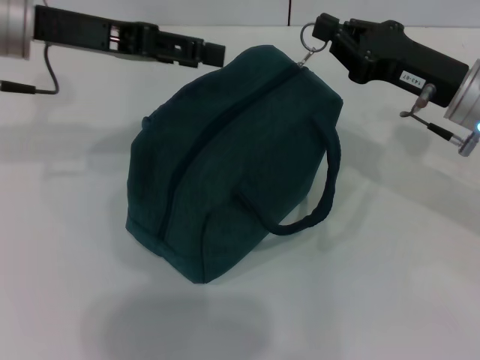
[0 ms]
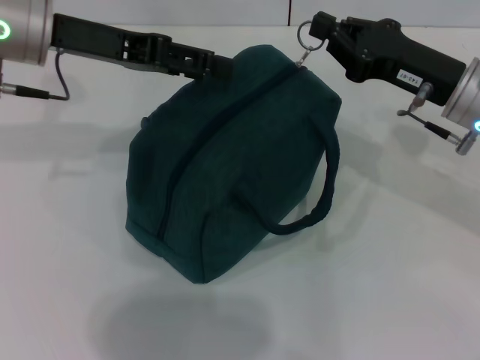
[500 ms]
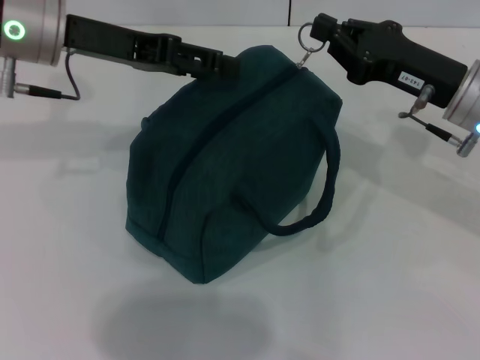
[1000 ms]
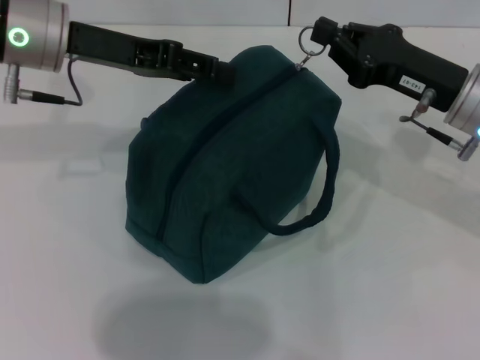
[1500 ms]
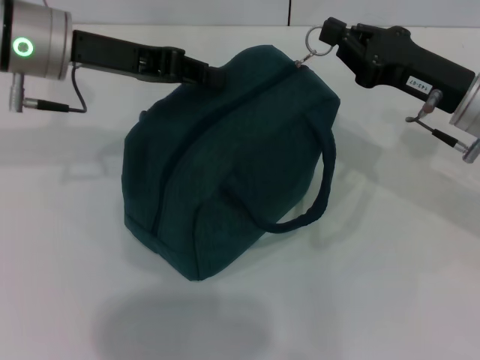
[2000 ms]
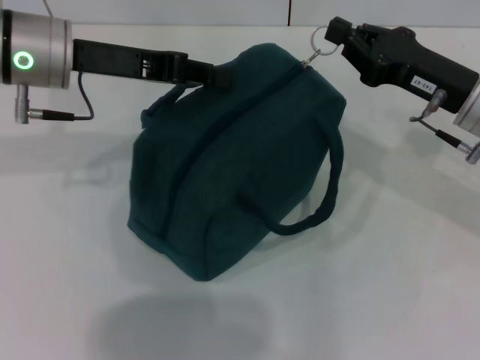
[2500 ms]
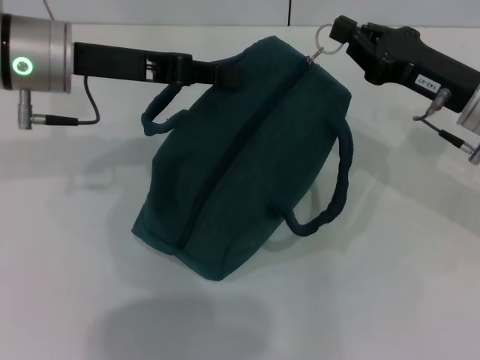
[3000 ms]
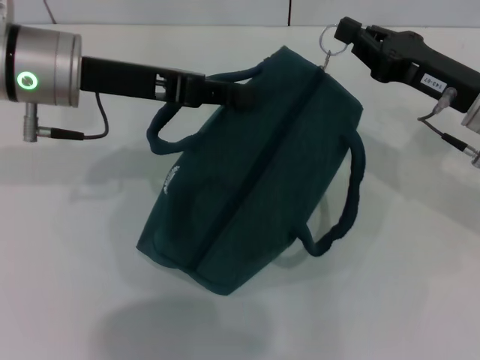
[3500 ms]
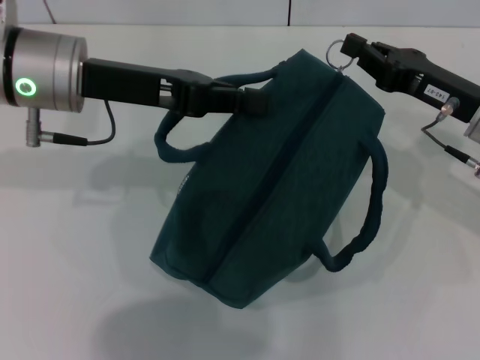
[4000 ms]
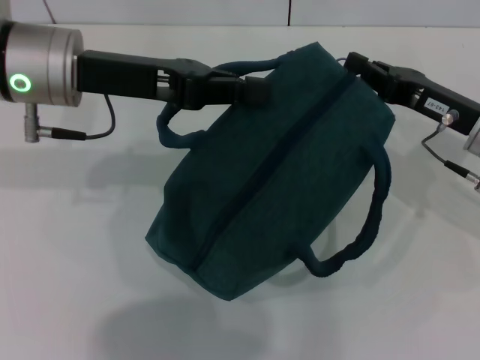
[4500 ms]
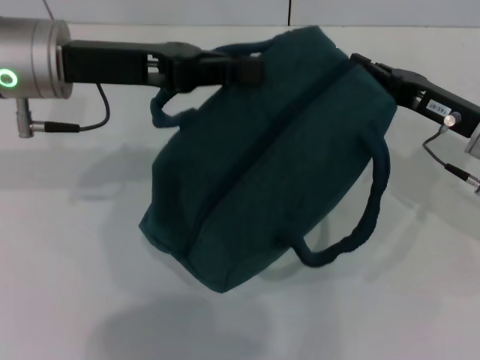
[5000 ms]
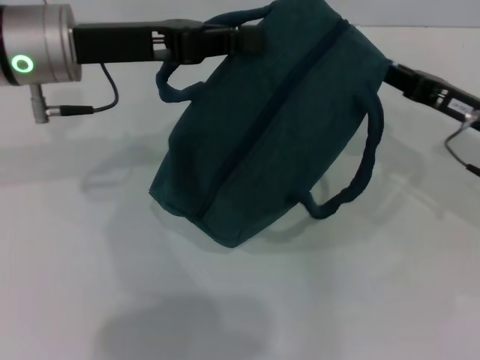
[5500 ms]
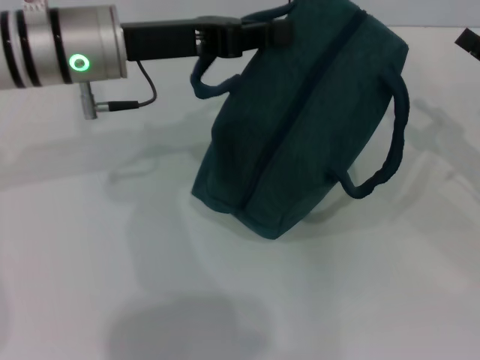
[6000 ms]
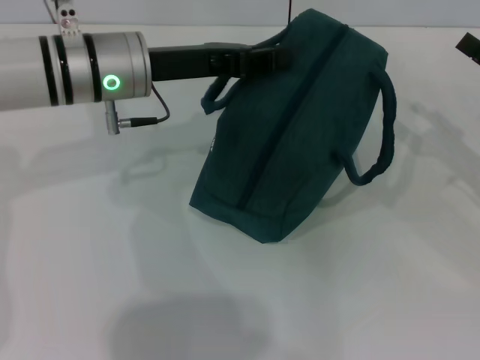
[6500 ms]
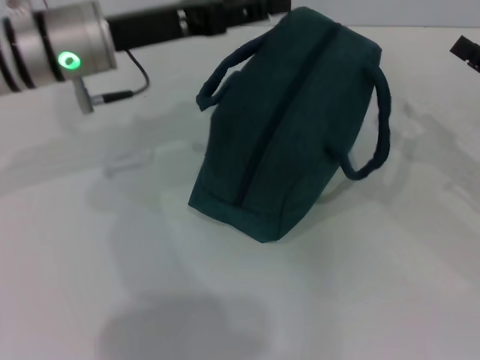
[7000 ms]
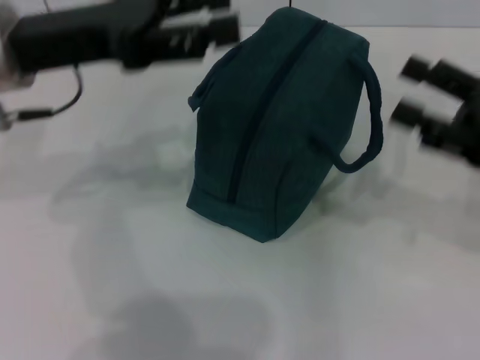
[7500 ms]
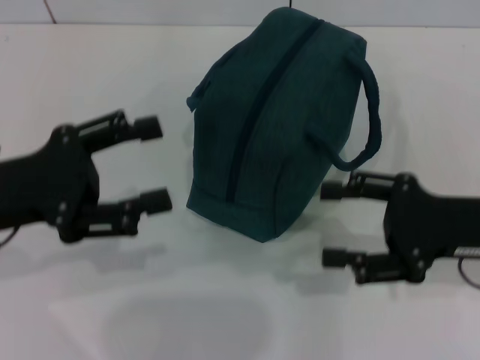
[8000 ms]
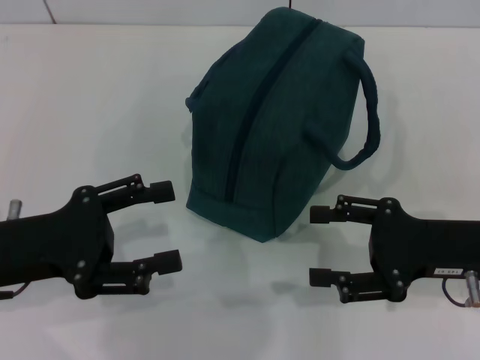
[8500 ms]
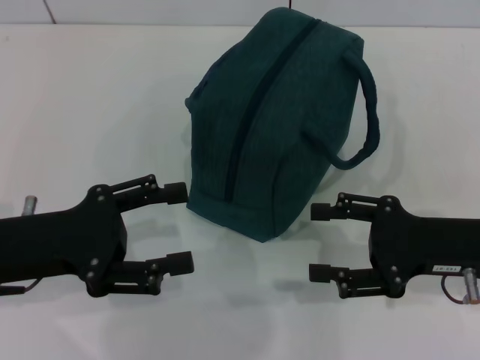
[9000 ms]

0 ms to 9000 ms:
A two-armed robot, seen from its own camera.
Step, 0 ms to 5500 ms: Zip up the lunch bag with your right hand.
Step, 6000 ms to 7000 ms: Hold the lunch bag with your left hand.
0 ms to 2000 ms: The left gripper closes up.
4500 ms to 7000 ms: The left gripper opens its fingers. Meanwhile the right gripper moves to the right, roughly 10 cm, and opens.
7000 ms to 9000 ms: The right gripper is displaced to the left and backward by about 10 cm, while the left gripper goes some 20 cm backward, to the left and downward, and opens.

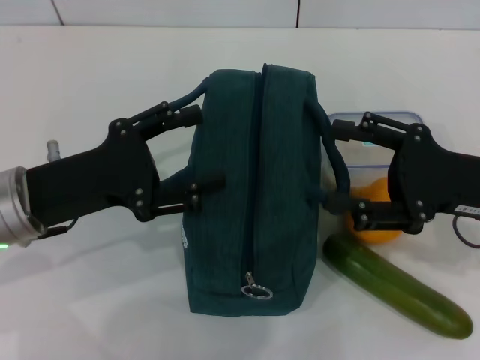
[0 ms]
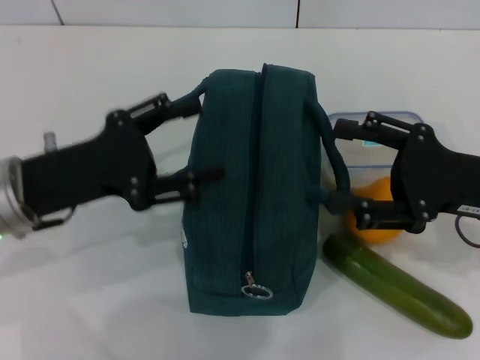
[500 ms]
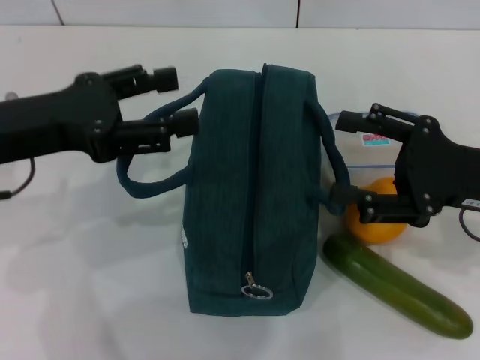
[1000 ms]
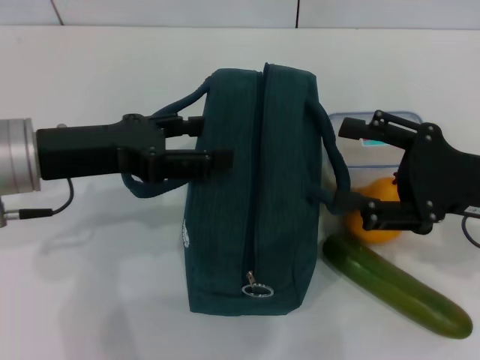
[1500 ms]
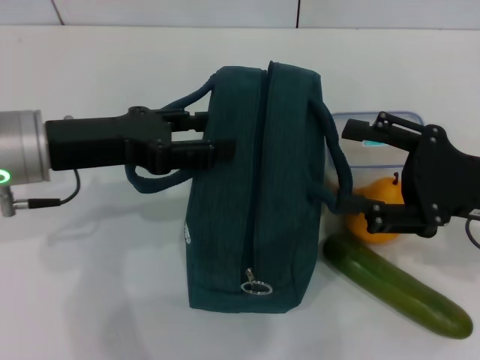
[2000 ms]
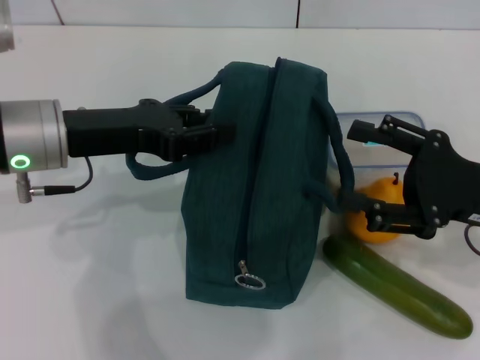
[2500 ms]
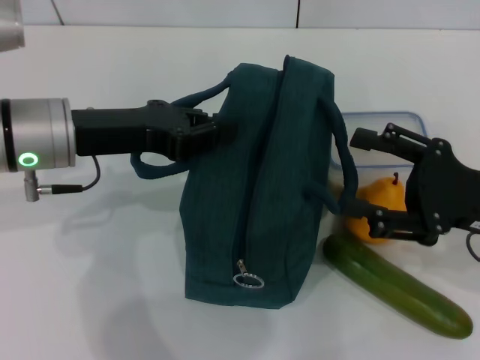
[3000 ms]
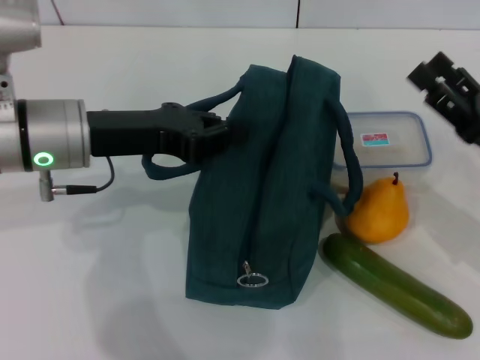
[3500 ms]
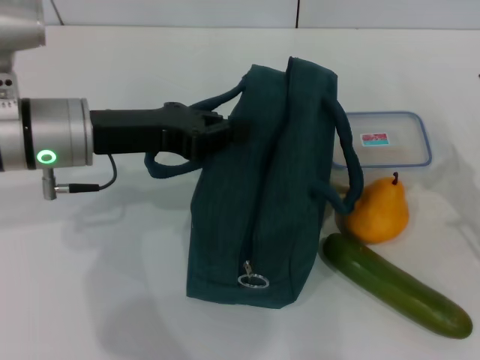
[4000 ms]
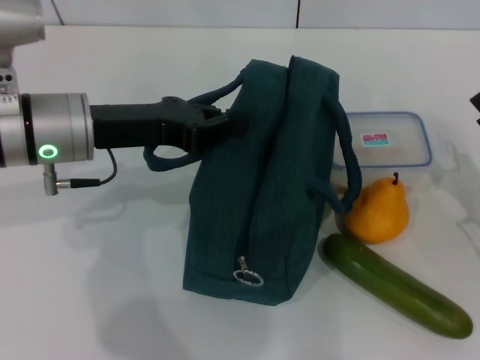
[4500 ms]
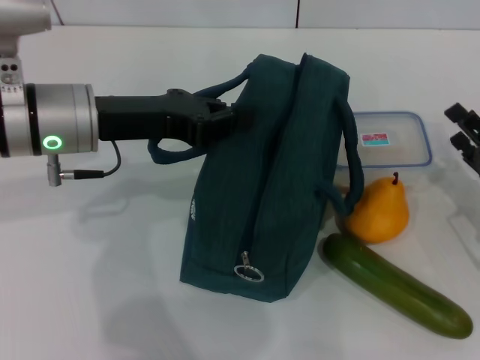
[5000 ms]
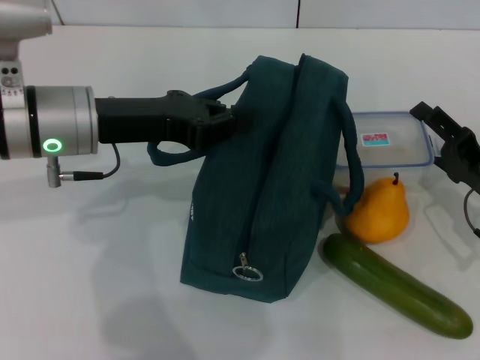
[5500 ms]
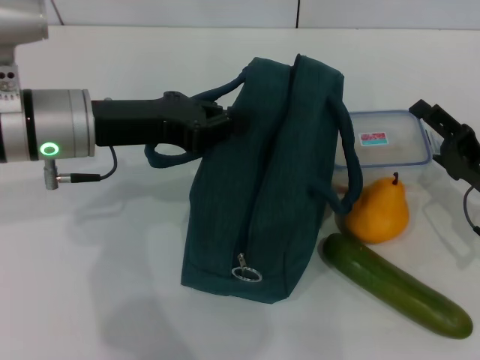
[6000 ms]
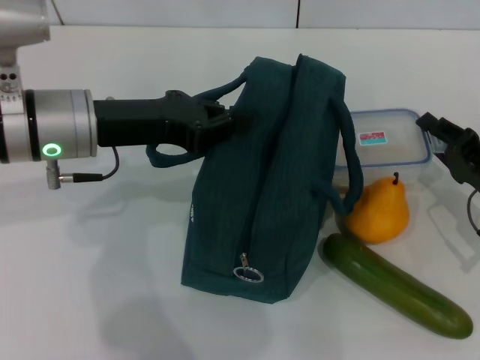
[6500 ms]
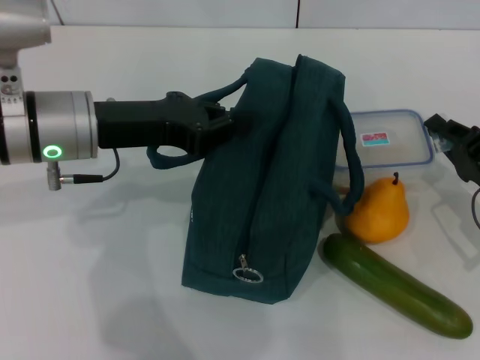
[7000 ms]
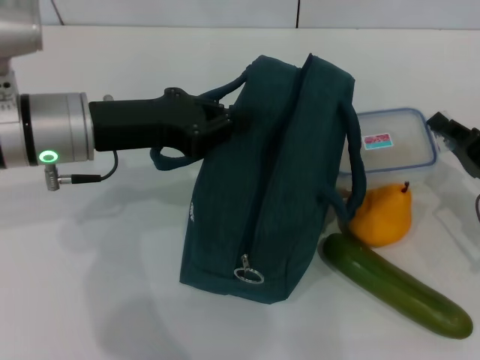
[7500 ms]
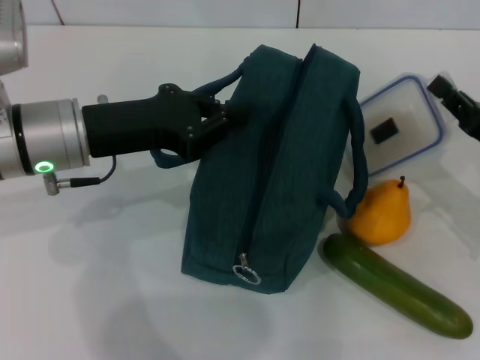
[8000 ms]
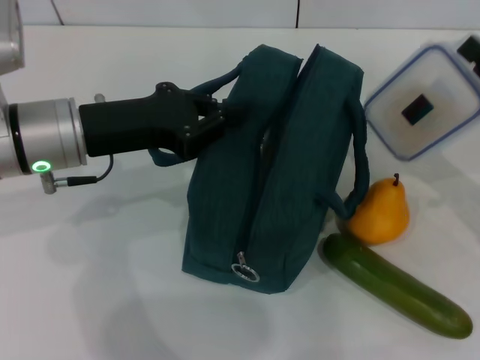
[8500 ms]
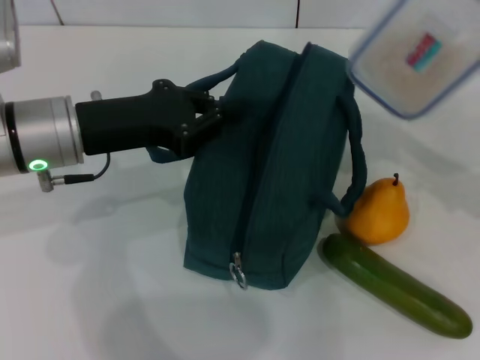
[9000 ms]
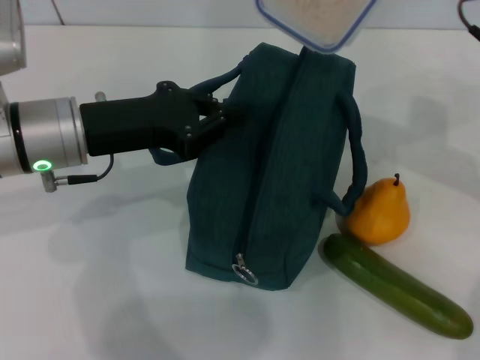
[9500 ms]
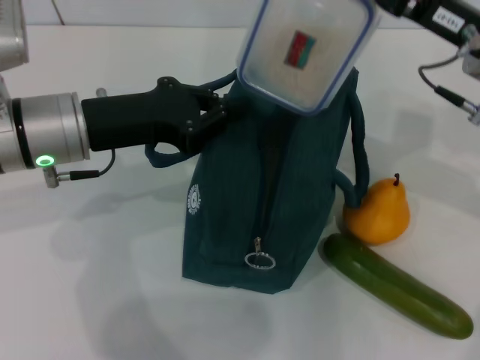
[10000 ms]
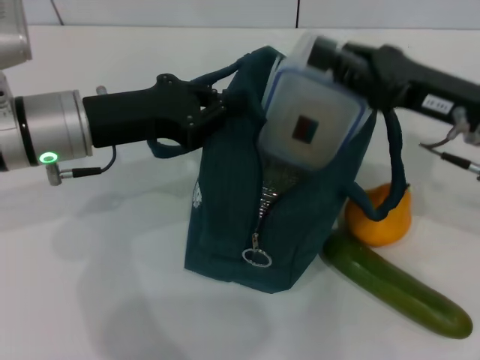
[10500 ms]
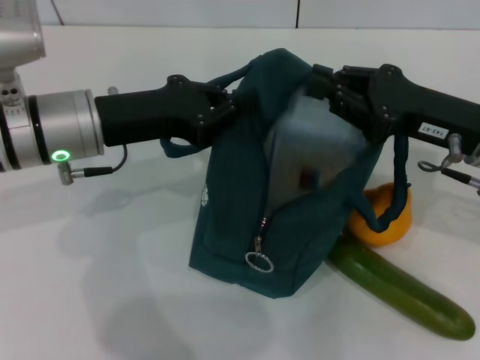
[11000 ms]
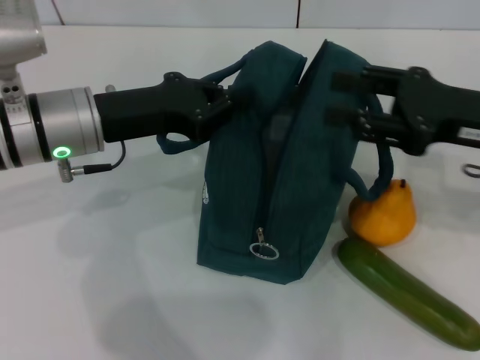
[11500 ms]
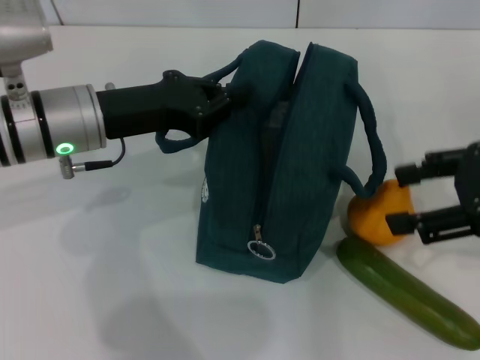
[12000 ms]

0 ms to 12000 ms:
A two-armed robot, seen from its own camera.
Step, 0 ms to 2500 ms: Hold the lunch bag with your left hand.
Step, 3000 ms to 7000 ms: Pick up the lunch box with your right hand.
Step, 7500 ms to 11000 ms: Place the lunch box into the lunch bag with your right hand.
0 ms to 2000 ms: The left gripper ends up about 5 cm from where it was.
2000 ms to 4000 ms: The right gripper shifts approximately 10 cm downward and to the right. Meanwhile the left gripper closes its fingers.
4000 ms to 6000 ms: The right gripper shifts by approximately 5 cm.
6000 ms to 8000 ms: The right gripper closes its fingers.
8000 ms to 10000 ms: The right gripper travels upward, to the left and forward by some 15 cm.
10000 ms to 12000 ms: The right gripper goes about 10 cm backward and to the right, and opens.

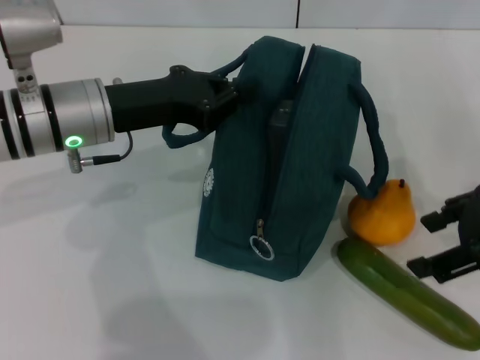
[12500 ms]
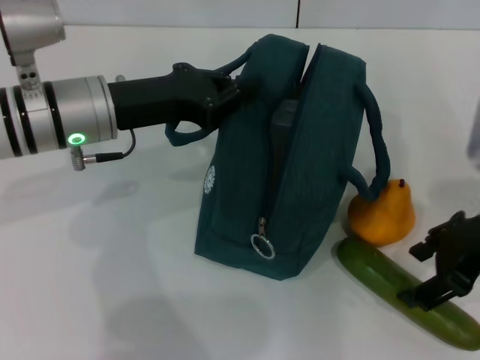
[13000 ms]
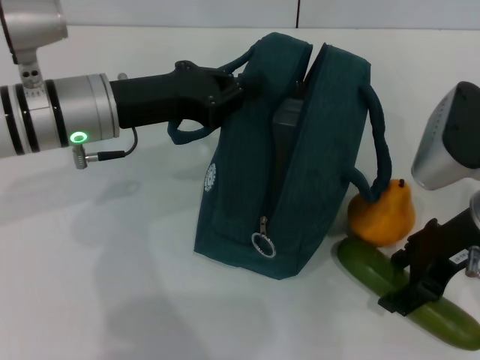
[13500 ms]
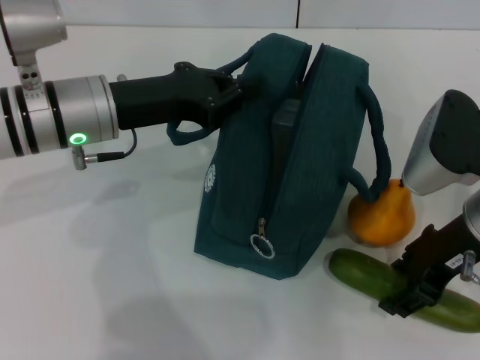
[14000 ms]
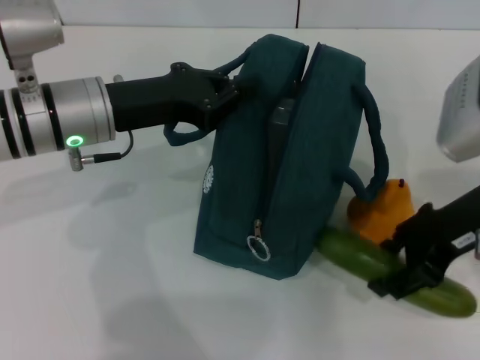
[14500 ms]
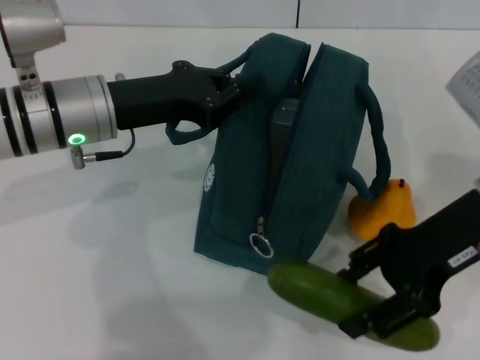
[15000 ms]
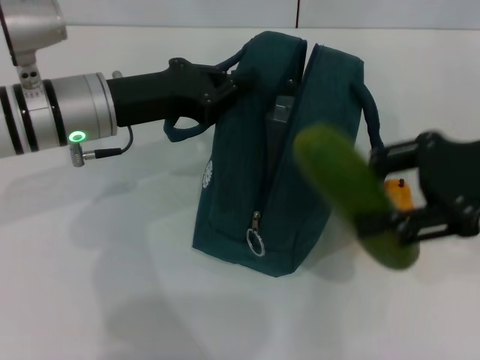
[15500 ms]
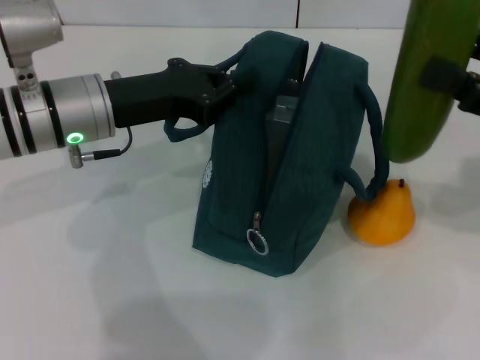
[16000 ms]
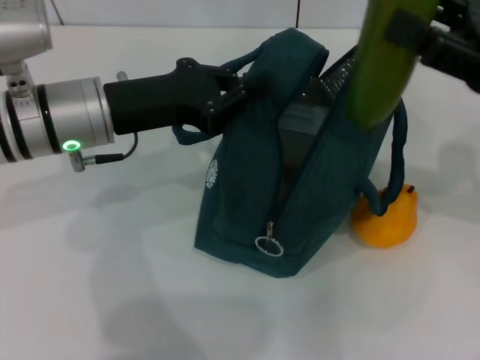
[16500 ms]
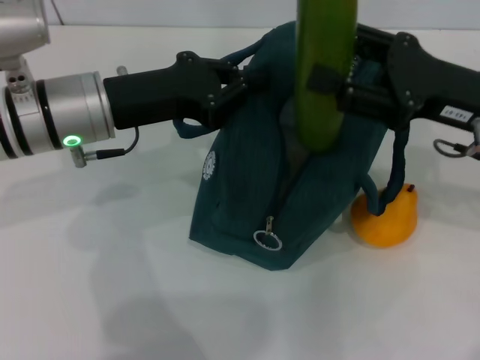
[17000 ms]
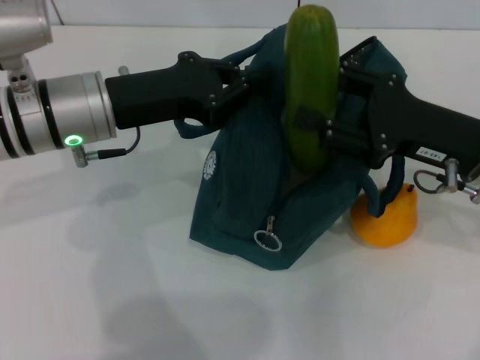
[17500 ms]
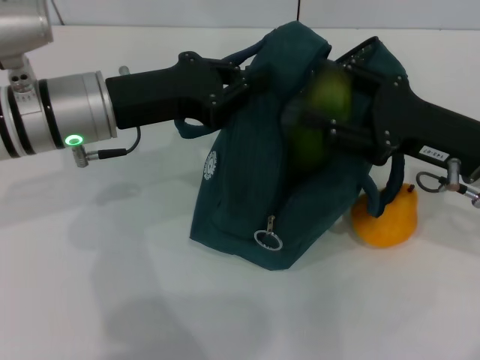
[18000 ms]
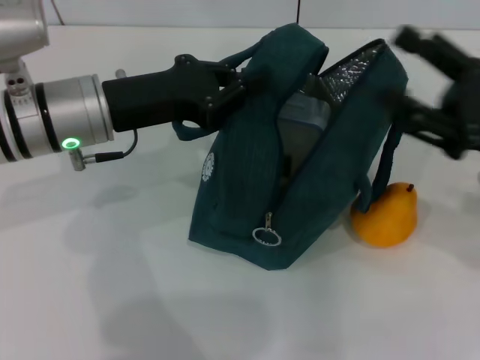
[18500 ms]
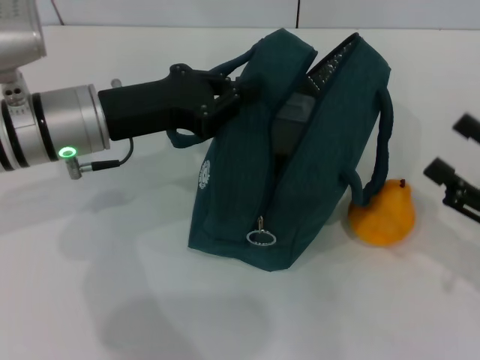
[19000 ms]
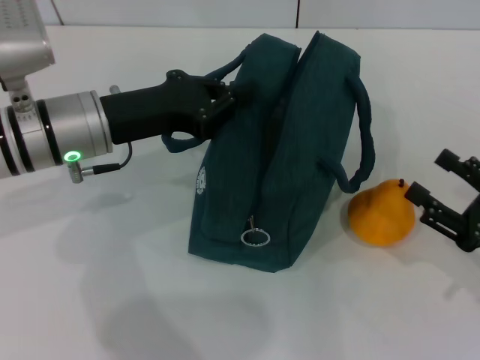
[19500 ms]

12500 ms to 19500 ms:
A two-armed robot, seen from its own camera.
Step, 14500 ms to 18000 ms: Put the cucumber into the lunch bag with your right hand.
12500 ms to 14500 ms: The right gripper shifts by about 5 cm.
14500 ms to 16000 ms: The right gripper moves to the right, approximately 10 cm.
16000 ms to 17500 ms: The right gripper goes approximately 10 cm to the left and downward.
17500 ms to 19500 ms: The right gripper travels backward, to the right and downward by approximately 15 cm.
